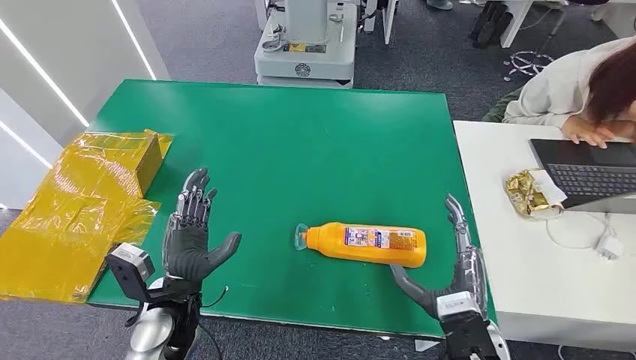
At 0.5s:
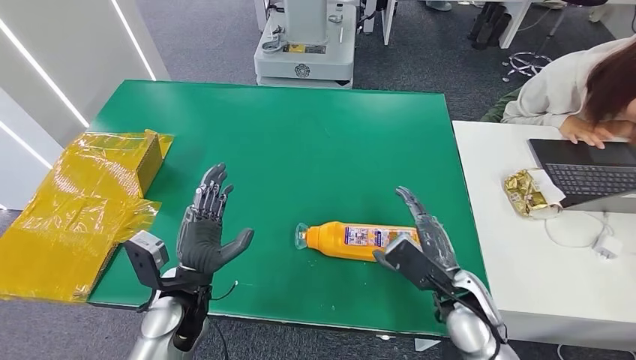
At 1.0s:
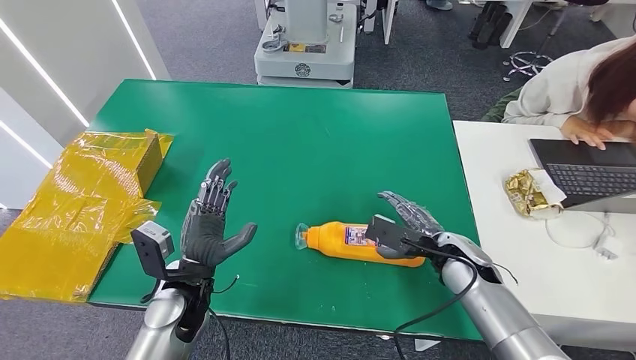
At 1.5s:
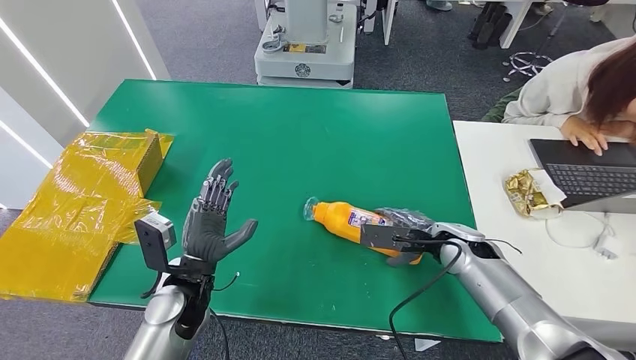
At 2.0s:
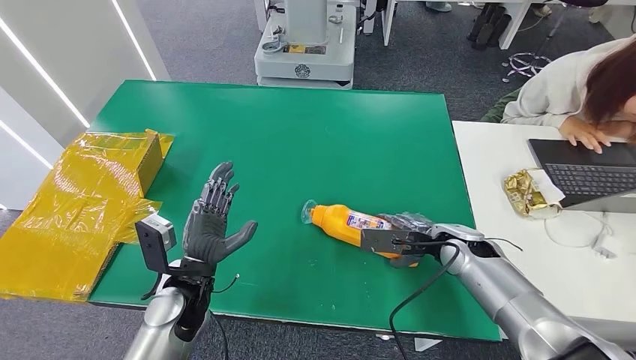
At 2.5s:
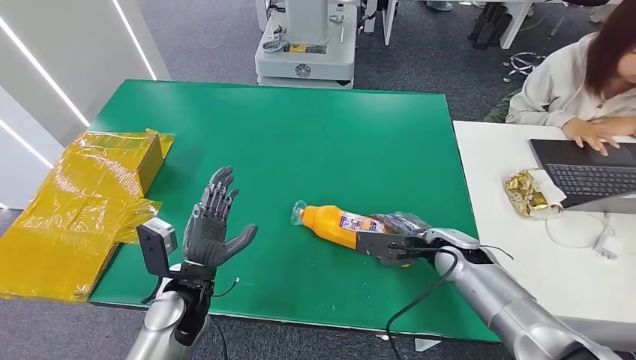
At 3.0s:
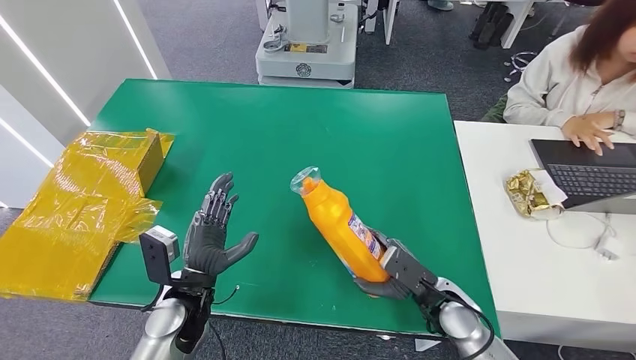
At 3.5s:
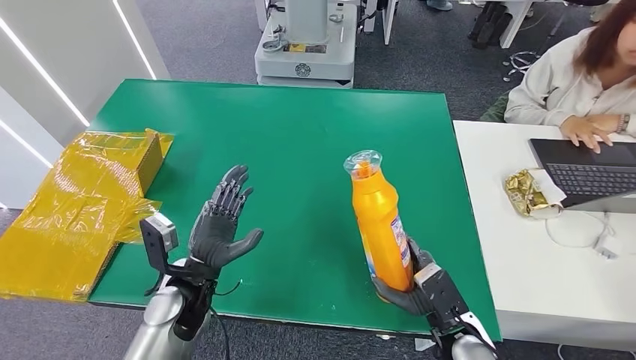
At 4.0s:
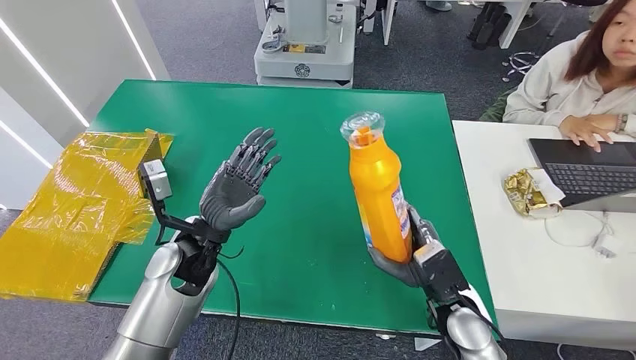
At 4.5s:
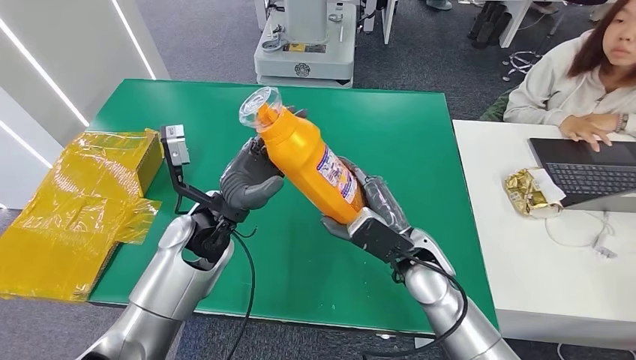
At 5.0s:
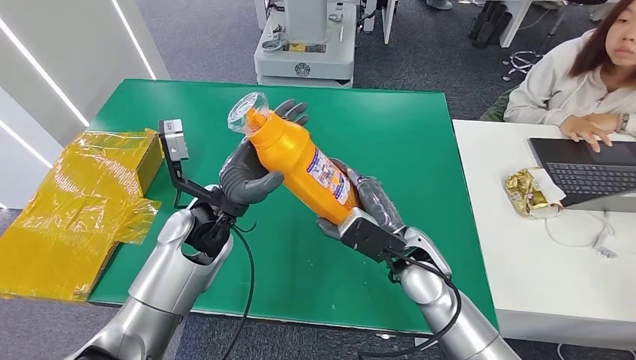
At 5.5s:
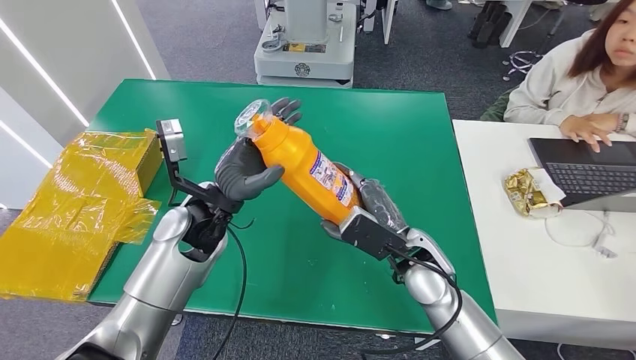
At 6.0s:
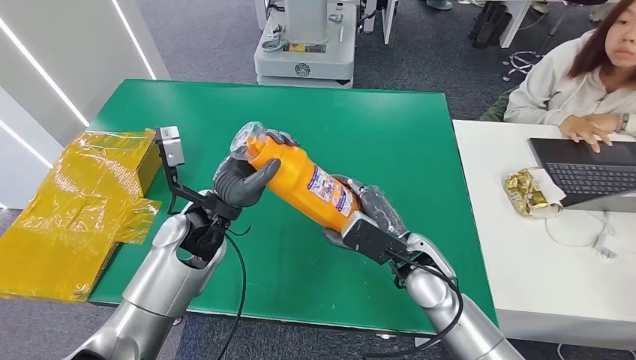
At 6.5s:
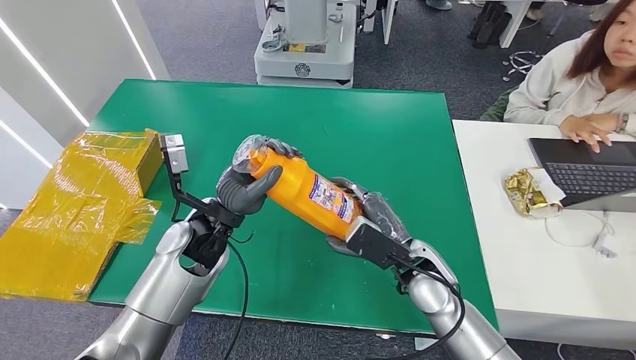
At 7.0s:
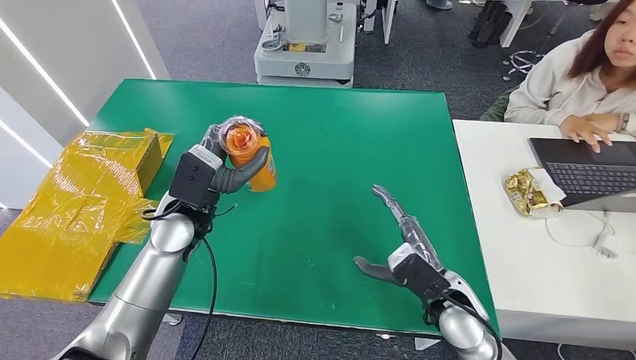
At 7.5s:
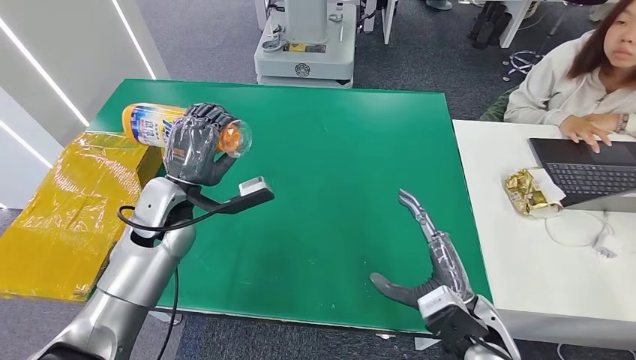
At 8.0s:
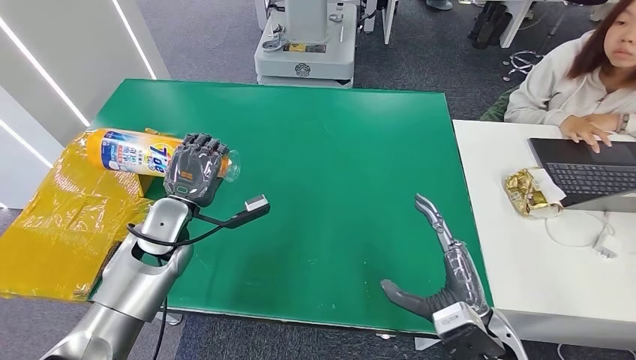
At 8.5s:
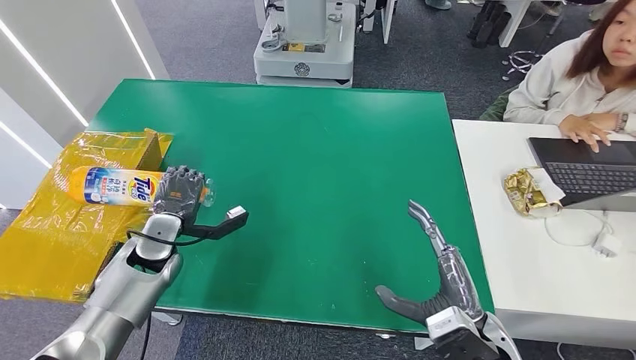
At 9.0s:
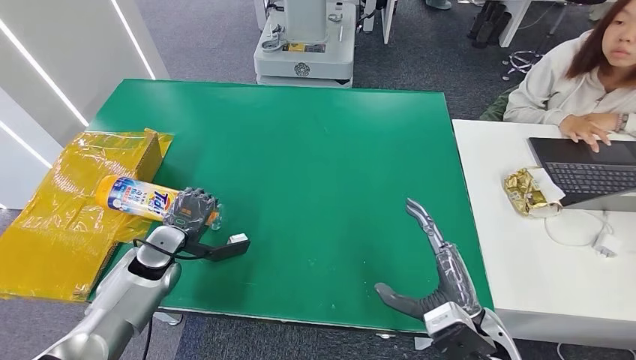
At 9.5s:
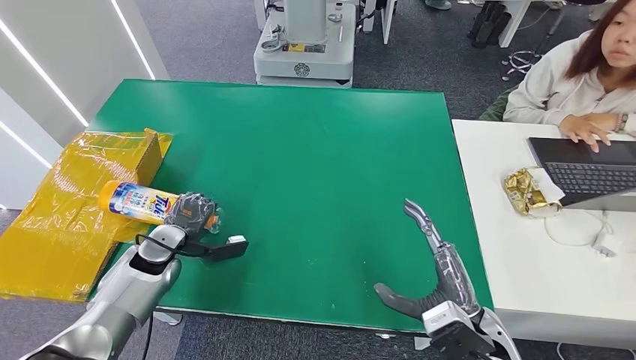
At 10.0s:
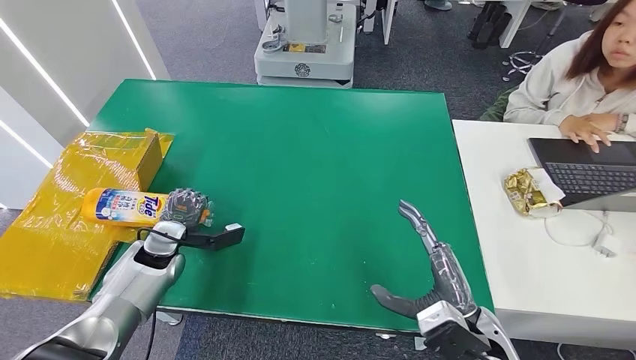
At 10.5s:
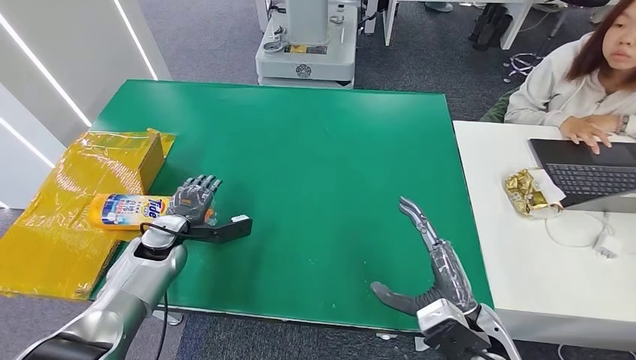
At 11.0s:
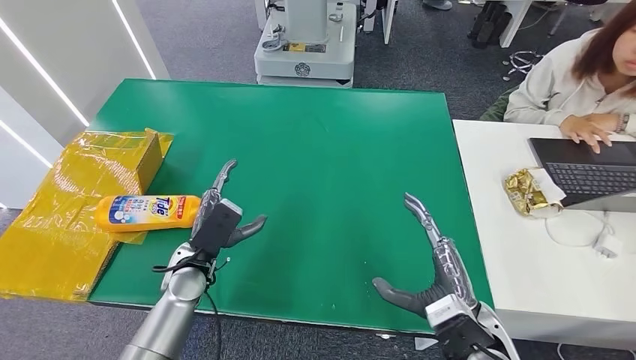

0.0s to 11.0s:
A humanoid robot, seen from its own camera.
Step, 0.0s to 3.0s: Pick up the bottle from the table.
Step, 4.0s to 11.0s: Turn the bottle to the front side.
2.0s to 3.5s: The right hand moves backward and downward, roughly 15 cm.
3.5s to 5.5s: The right hand is displaced forward, upward and to the left by roughly 15 cm. The left hand heads upward and forward, covering some 15 cm.
5.5s to 7.5s: The left hand travels to the left by some 5 cm, while the right hand heads backward and to the right, covering approximately 15 cm.
7.5s to 9.0s: The left hand heads downward and to the left, covering some 15 cm.
9.0s to 11.0s: The left hand moves to the right, roughly 10 cm.

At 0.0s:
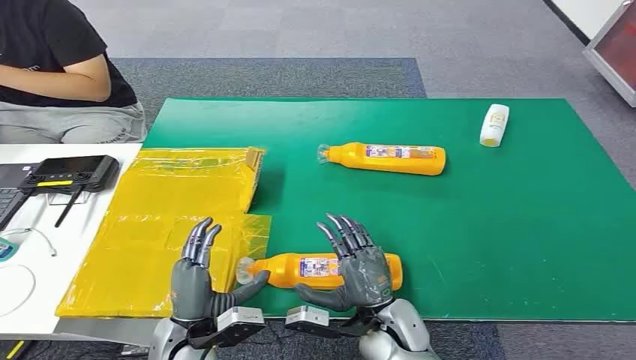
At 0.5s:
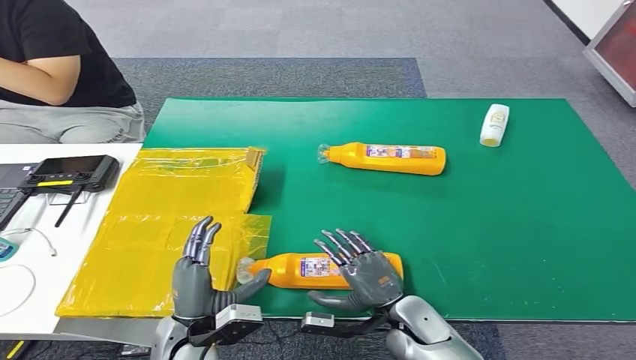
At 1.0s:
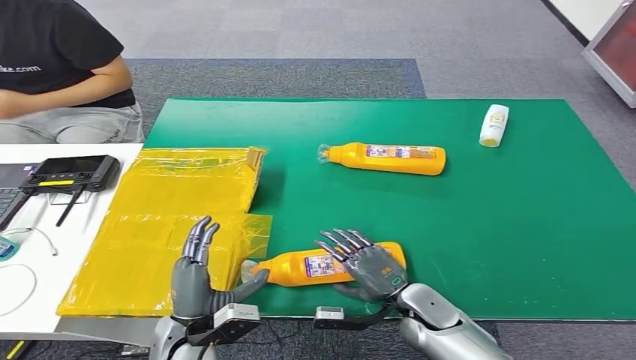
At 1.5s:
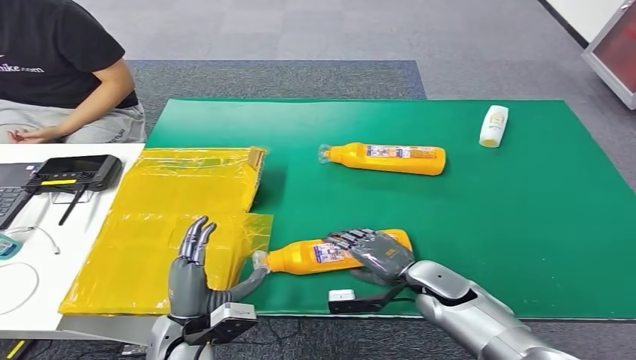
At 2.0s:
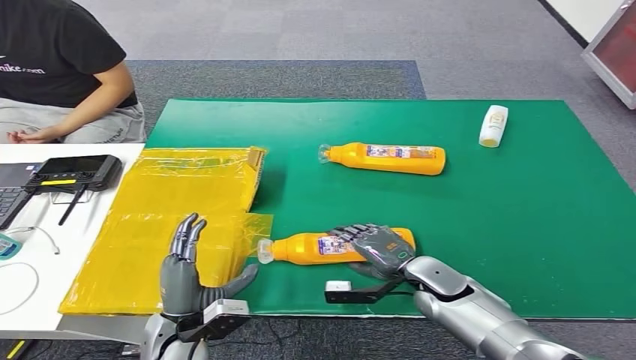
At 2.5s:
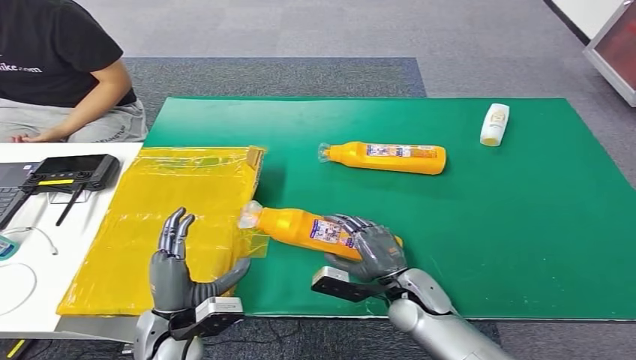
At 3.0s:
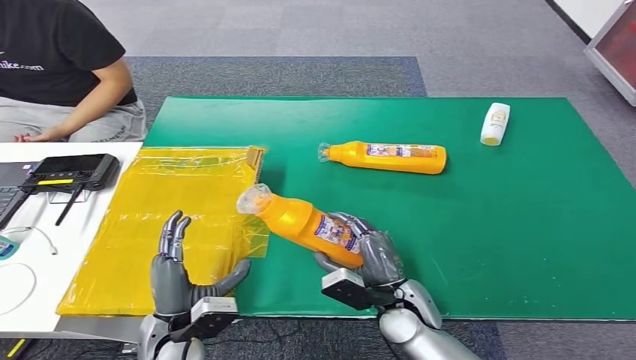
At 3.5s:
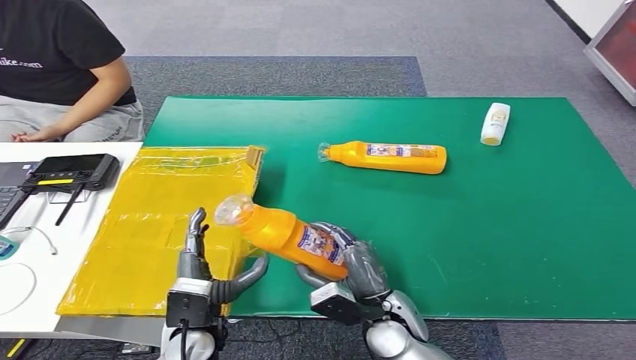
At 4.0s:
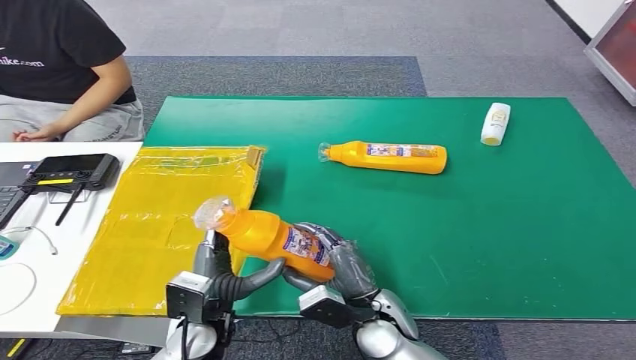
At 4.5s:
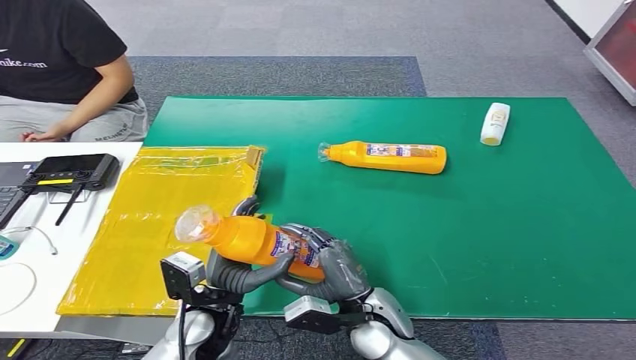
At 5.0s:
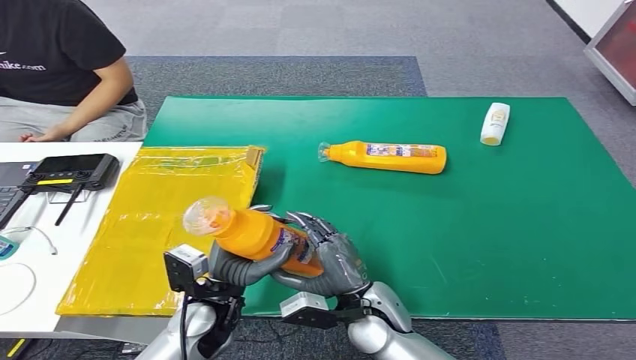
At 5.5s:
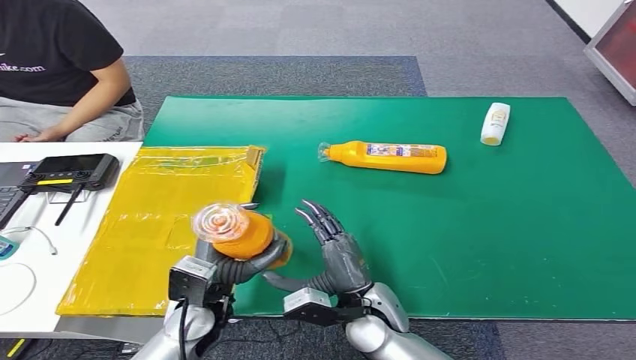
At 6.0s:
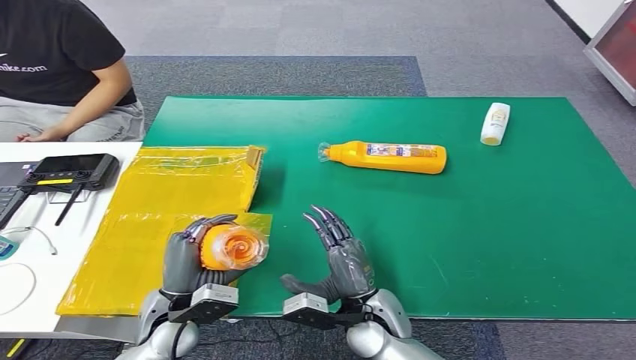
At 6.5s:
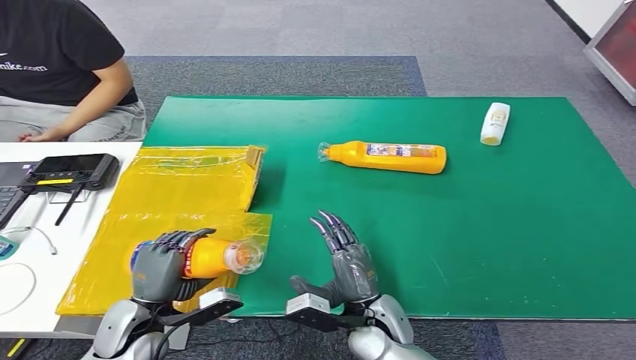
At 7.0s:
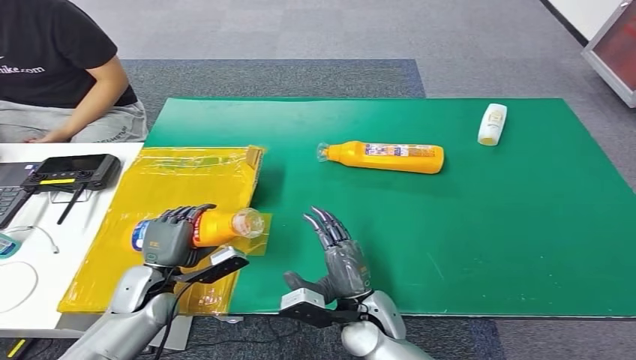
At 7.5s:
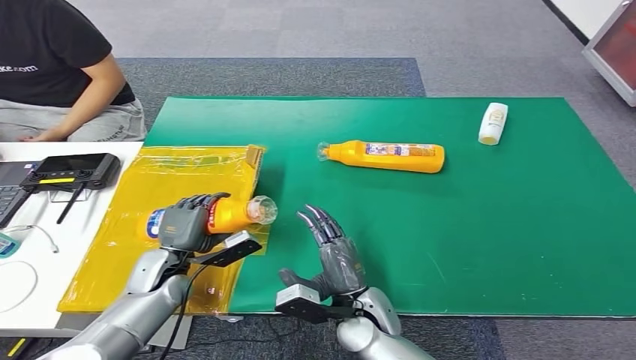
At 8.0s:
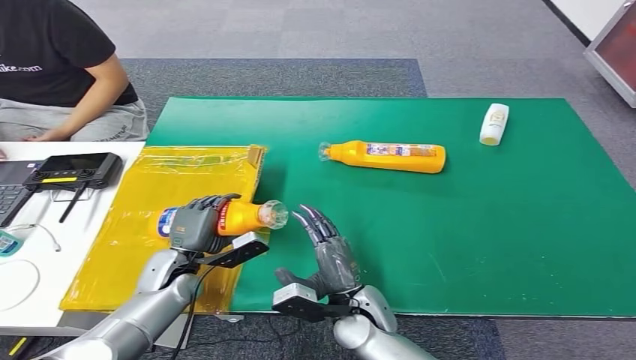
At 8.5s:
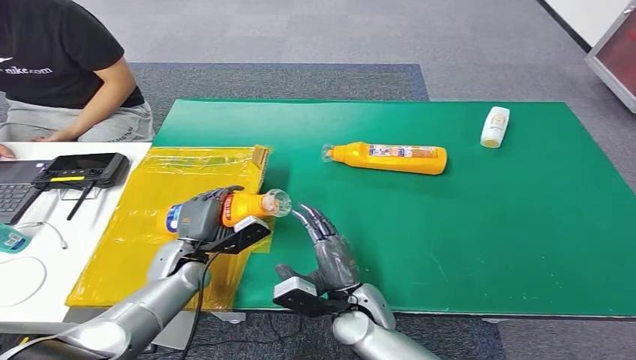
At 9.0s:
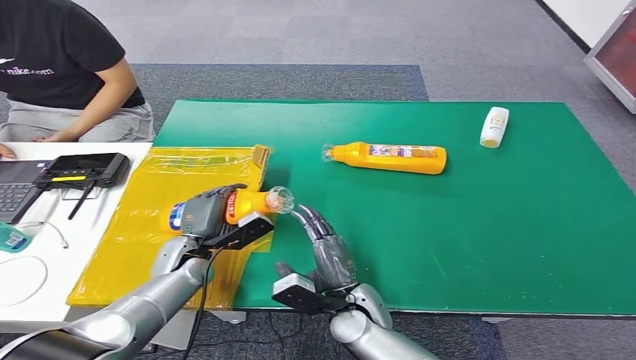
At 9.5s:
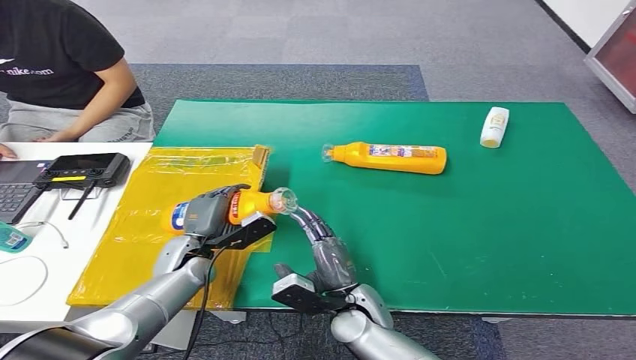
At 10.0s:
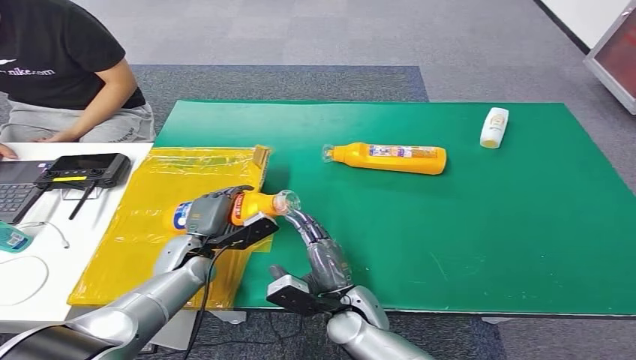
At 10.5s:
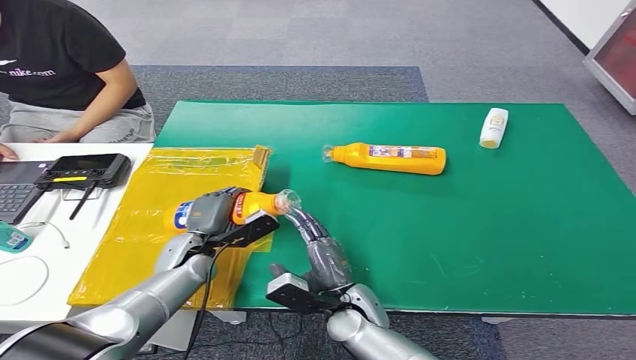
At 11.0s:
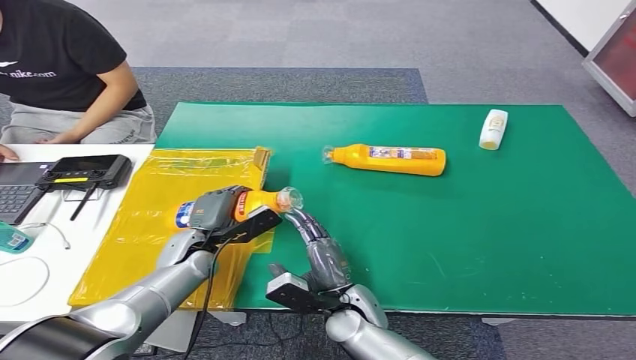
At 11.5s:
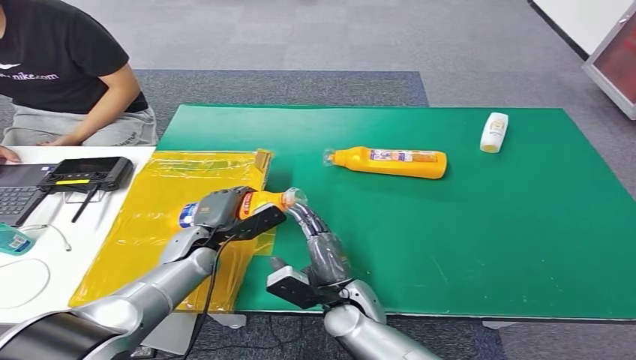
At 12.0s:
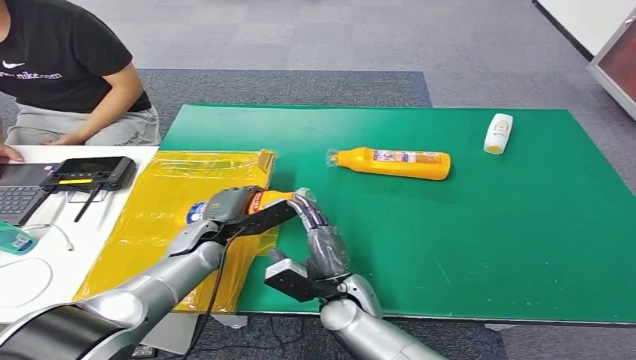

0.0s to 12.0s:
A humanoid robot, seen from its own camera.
Step, 0.0s to 3.0s: Pick up the bottle from the table.
2.0s to 4.0s: The left hand moves about 5 cm. The right hand heads to the left and backward, covering approximately 15 cm.
4.0s to 6.0s: The left hand shifts by some 5 cm.
6.0s to 8.0s: The left hand moves forward, approximately 10 cm.
